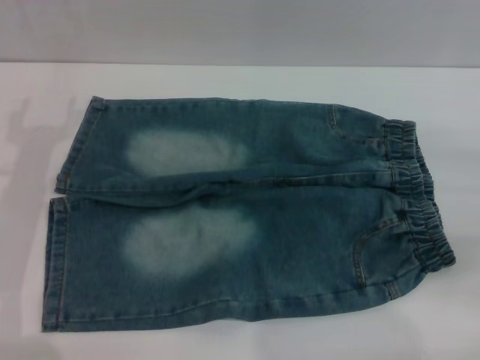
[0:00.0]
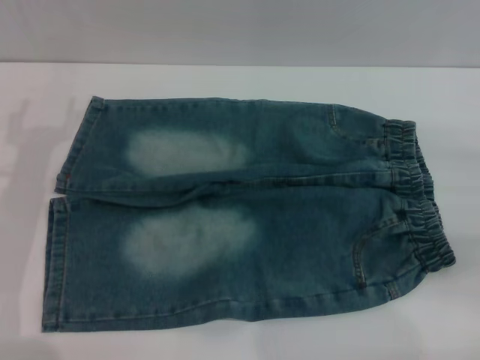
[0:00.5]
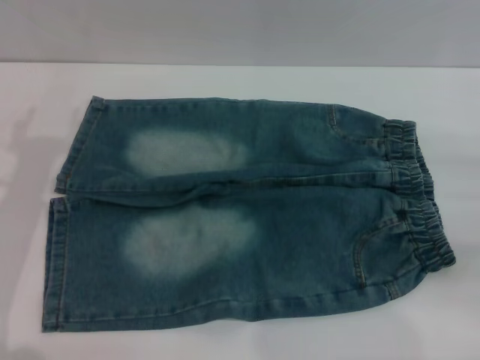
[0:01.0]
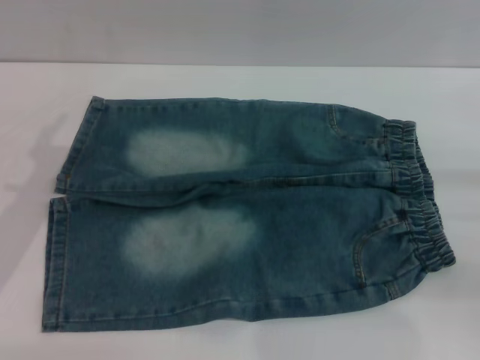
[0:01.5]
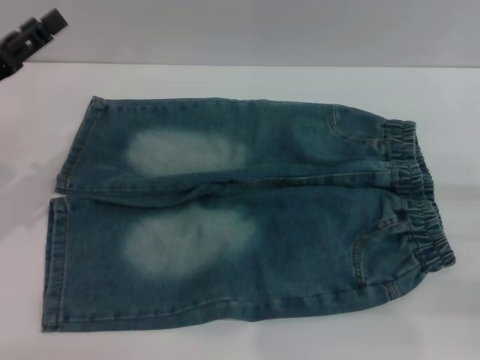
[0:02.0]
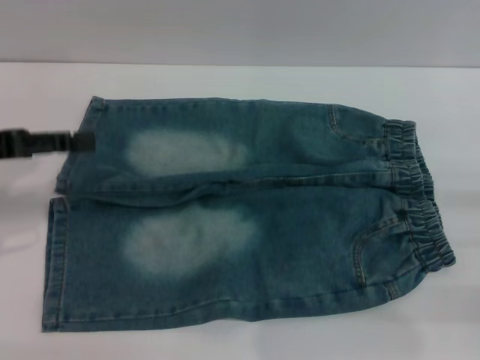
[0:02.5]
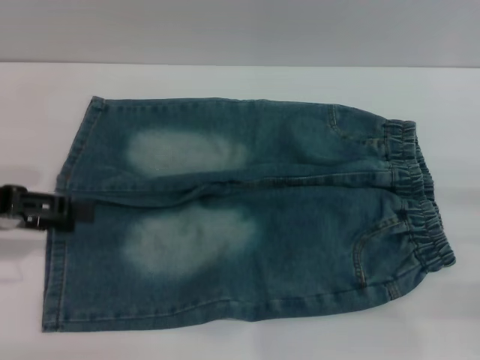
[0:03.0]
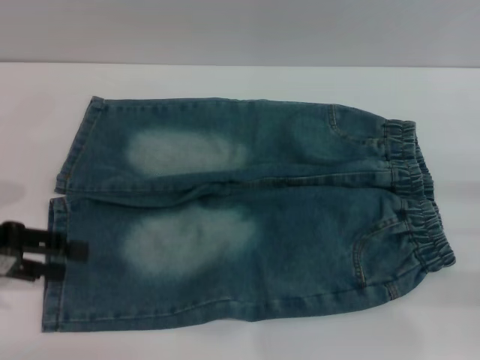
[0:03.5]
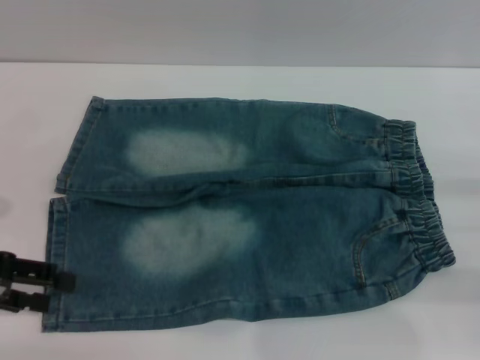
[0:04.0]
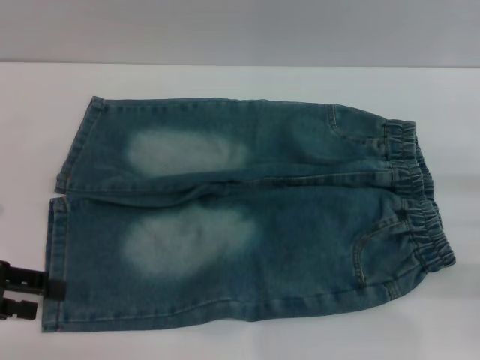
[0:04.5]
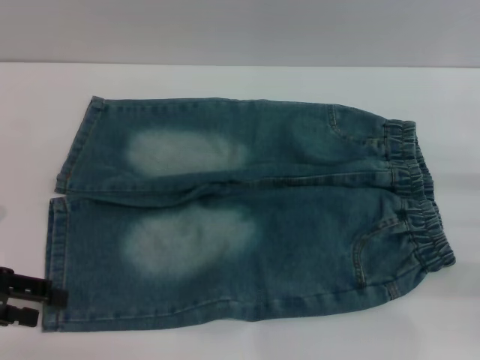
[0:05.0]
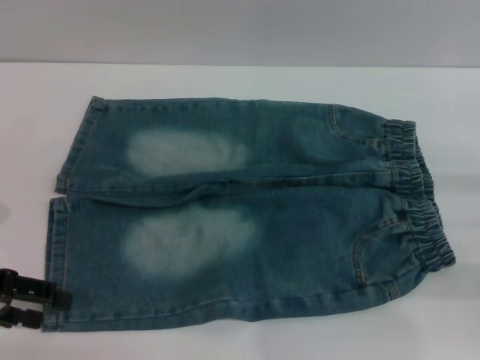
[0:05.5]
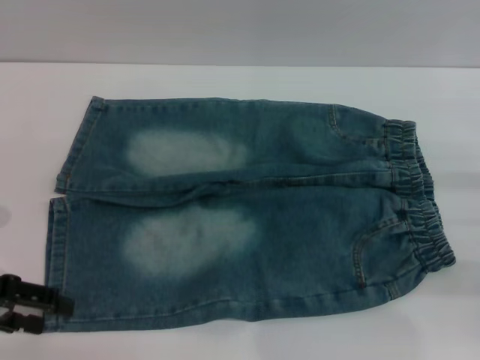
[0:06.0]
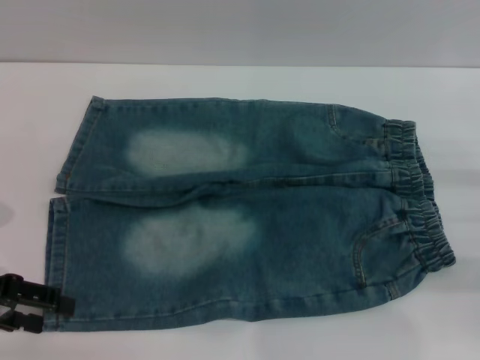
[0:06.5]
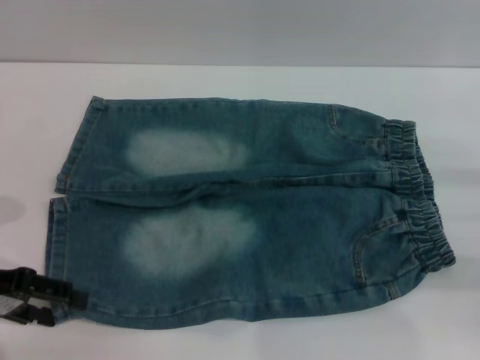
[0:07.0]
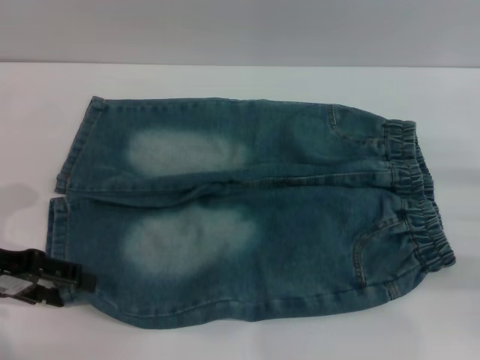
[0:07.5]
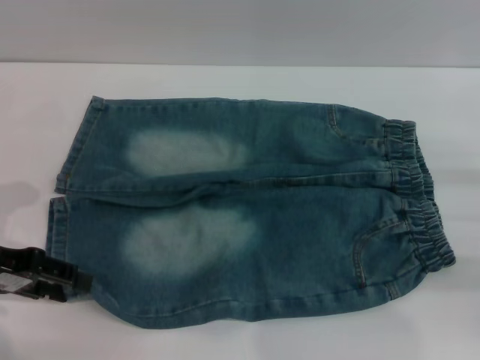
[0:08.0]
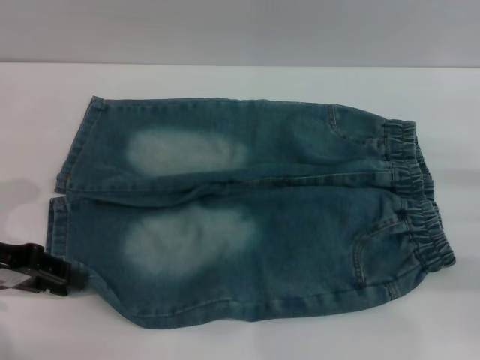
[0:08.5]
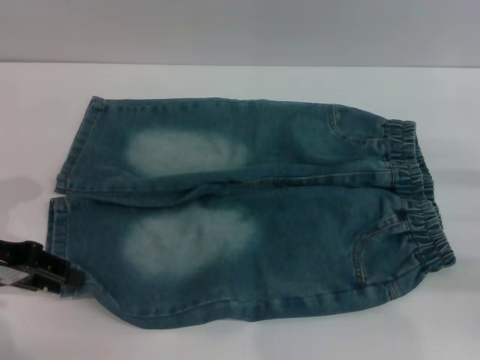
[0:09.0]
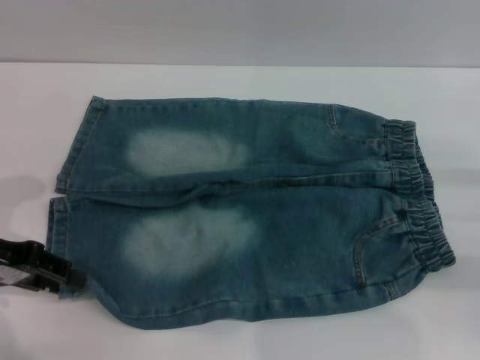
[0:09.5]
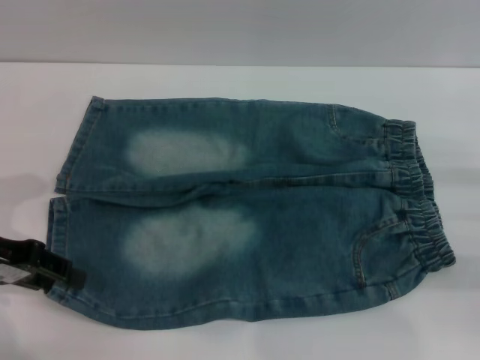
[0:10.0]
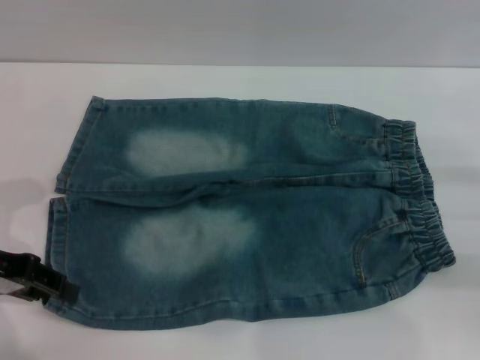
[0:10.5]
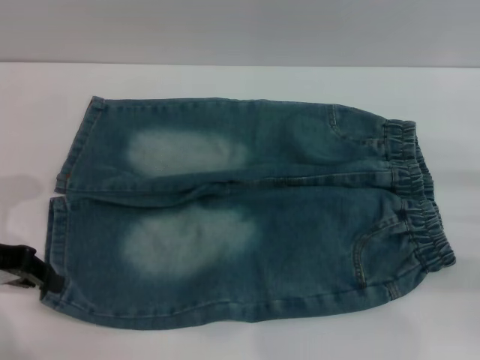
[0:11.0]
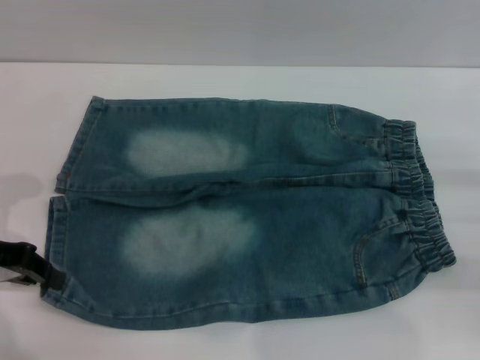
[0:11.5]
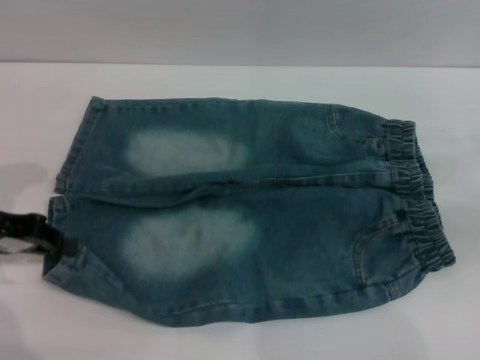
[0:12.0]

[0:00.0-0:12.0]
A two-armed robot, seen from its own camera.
0:02.0 to 0:04.0: The left gripper shifts about 5 cm backward.
0:04.0 to 0:08.0: The grippers stay close to where they were, moving slightly.
0:08.0 to 0:10.0: The left gripper closes up.
0:10.0 to 0:12.0: The left gripper closes.

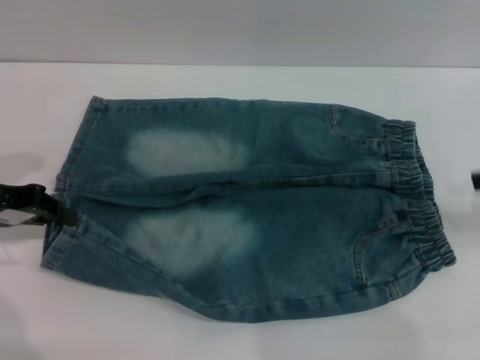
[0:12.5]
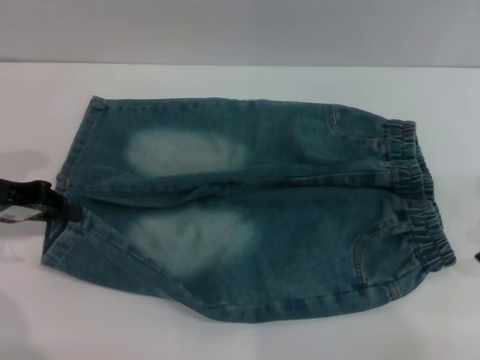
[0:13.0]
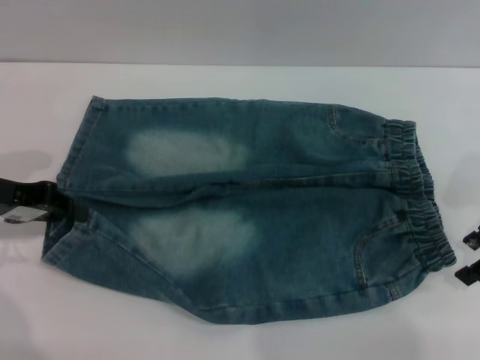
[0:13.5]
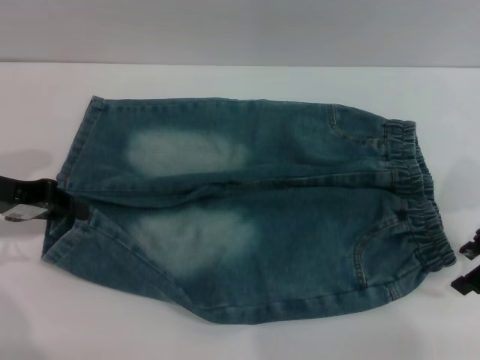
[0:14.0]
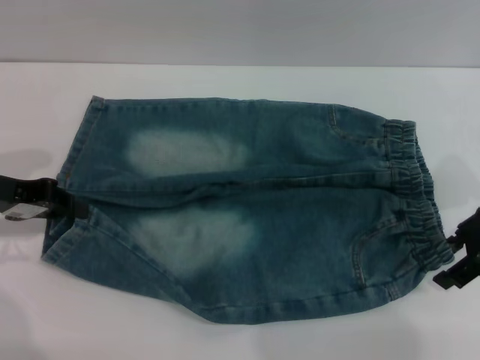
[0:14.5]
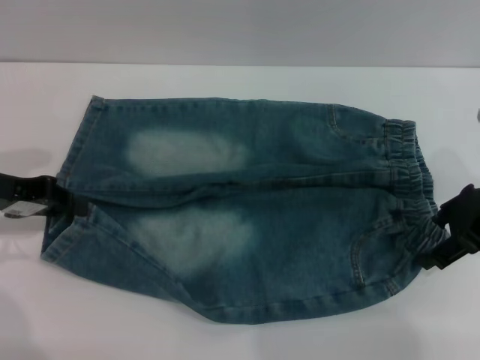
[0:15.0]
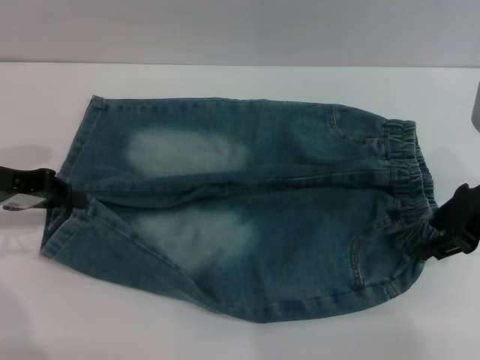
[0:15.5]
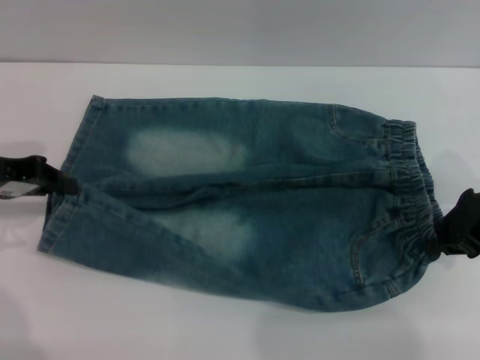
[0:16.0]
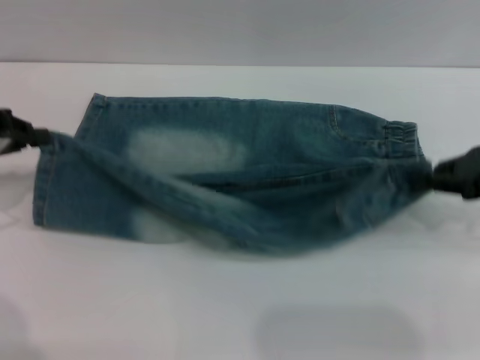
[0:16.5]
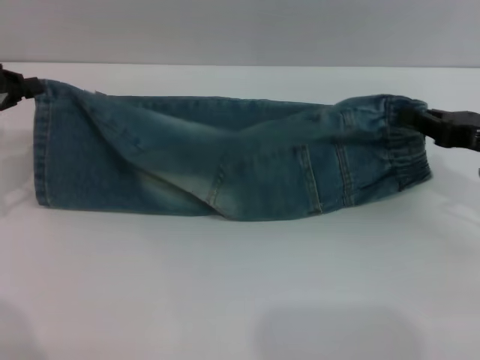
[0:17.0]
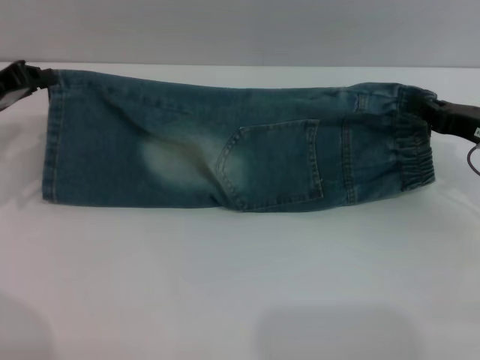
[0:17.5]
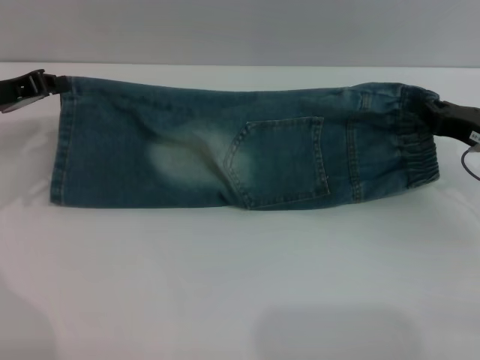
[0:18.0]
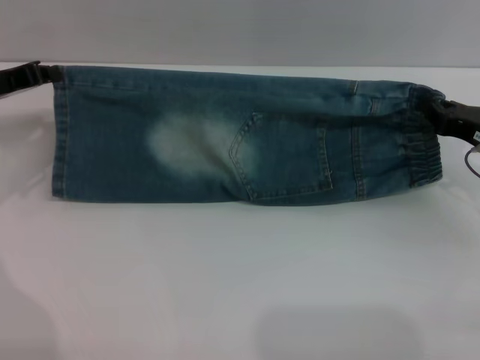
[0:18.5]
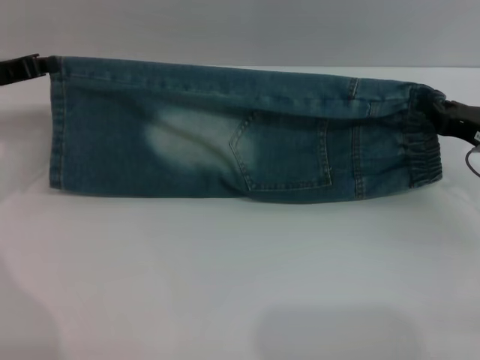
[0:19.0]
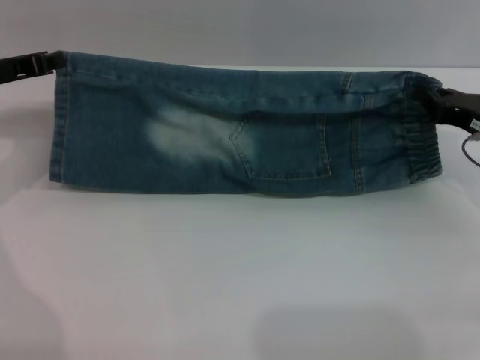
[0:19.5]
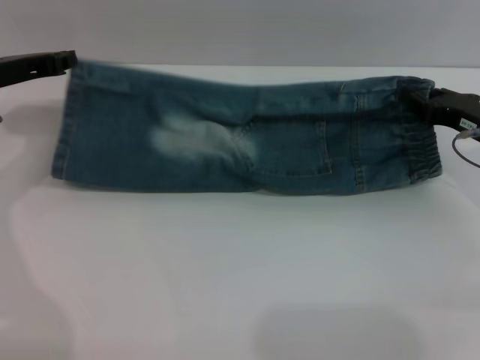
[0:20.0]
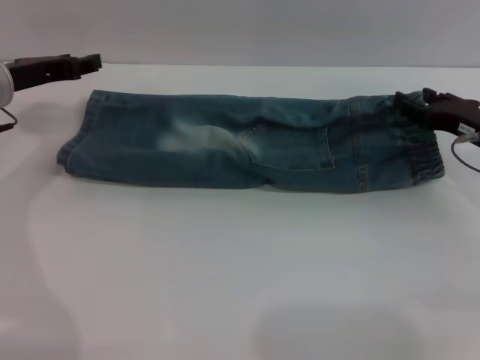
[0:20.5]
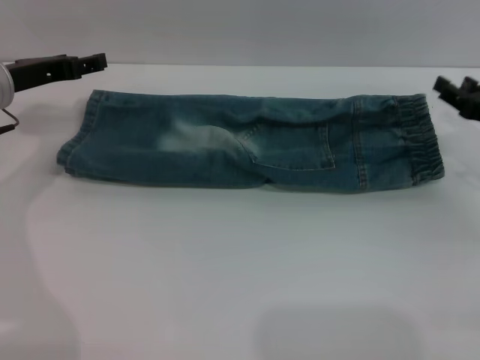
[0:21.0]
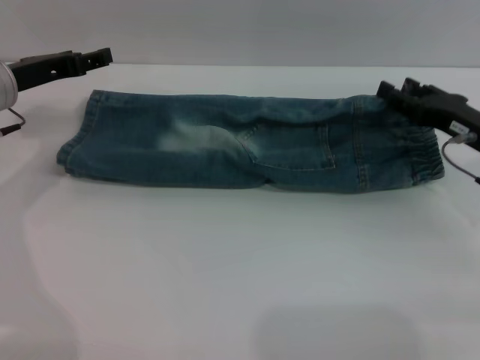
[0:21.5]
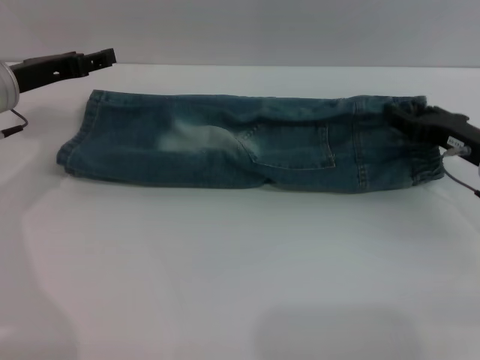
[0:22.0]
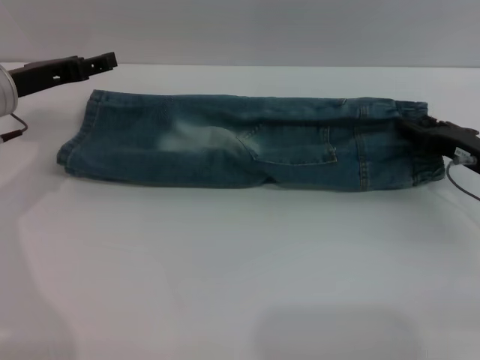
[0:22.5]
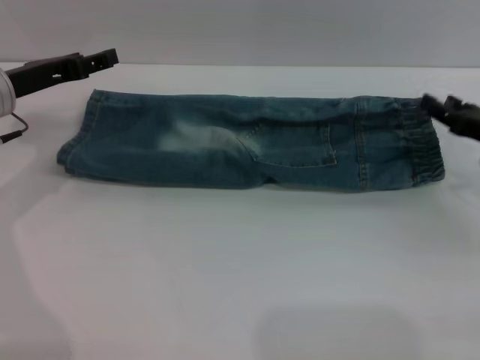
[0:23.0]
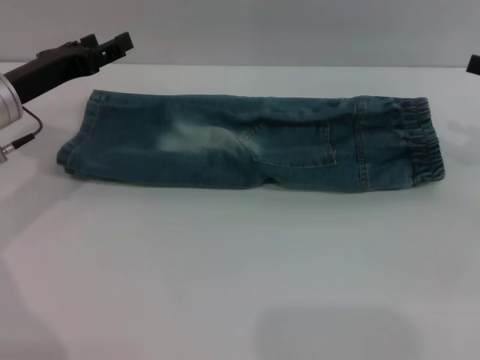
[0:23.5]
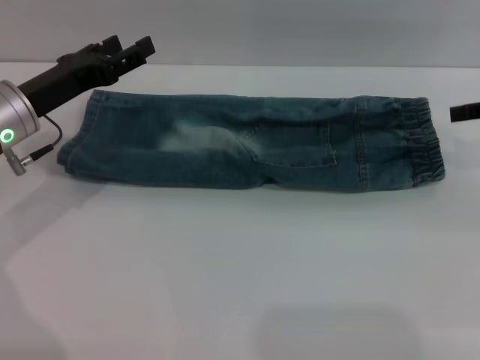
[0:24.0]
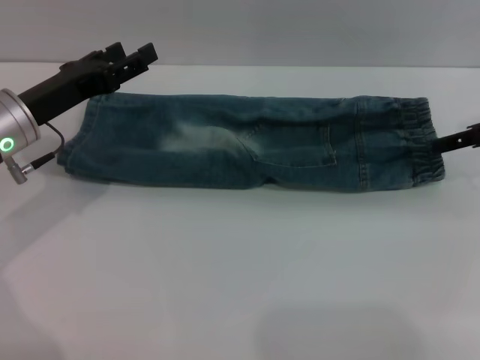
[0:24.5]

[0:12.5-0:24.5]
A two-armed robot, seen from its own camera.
Step, 0:12.5 to 0:20.5: Fold the bottom of the pants upward with both grippers.
0:12.5 to 0:14.5: The right gripper is displaced to the left and downward by approximately 10 cm.
0:14.5 to 0:16.5: The right gripper closes up.
0:16.5 to 0:18.5: The right gripper goes approximately 10 cm downward; the left gripper changes place by about 5 cm.
0:18.5 to 0:20.5: The left gripper opens up. The right gripper opens up.
0:20.5 to 0:22.5: The left gripper opens its fingers.
0:22.5 to 0:24.5: The right gripper moves upward, roughly 10 cm. Meanwhile the left gripper changes place by about 5 cm.

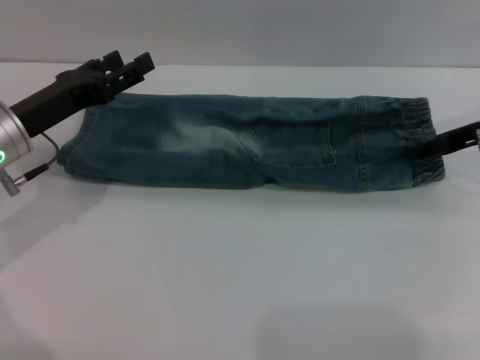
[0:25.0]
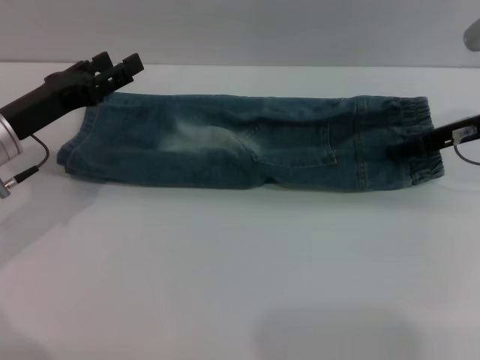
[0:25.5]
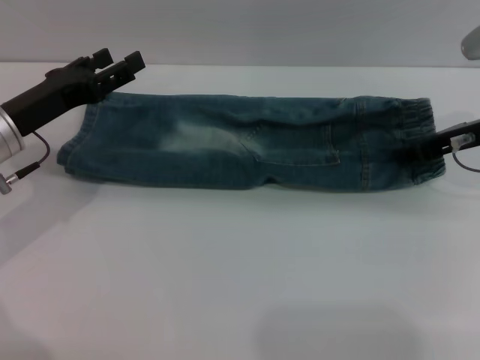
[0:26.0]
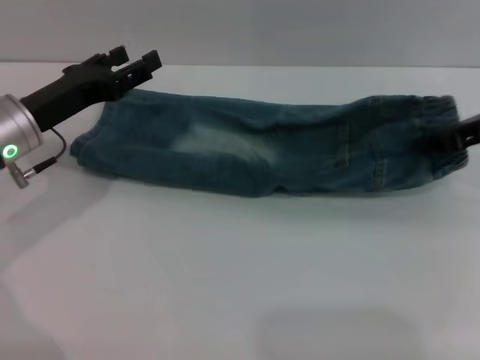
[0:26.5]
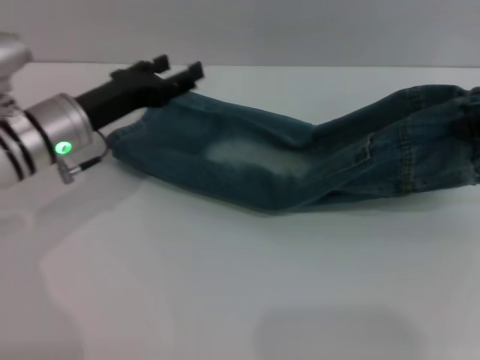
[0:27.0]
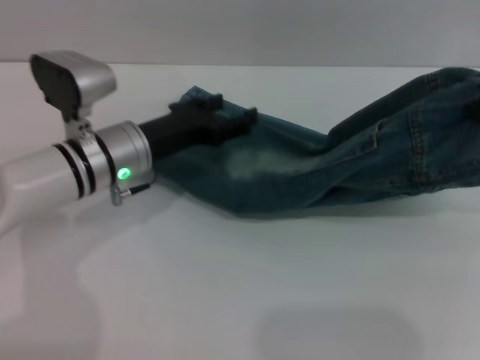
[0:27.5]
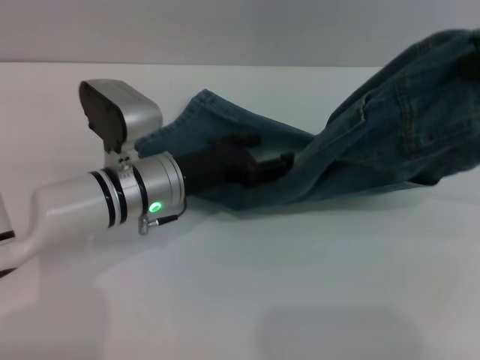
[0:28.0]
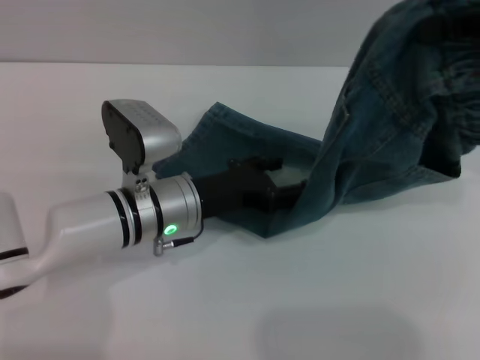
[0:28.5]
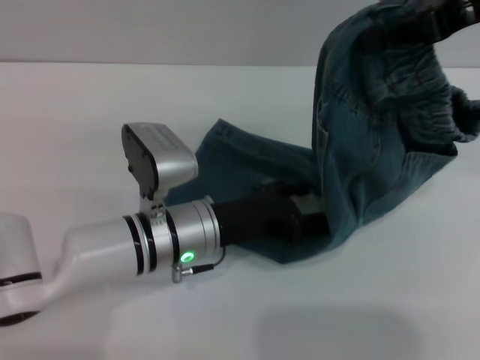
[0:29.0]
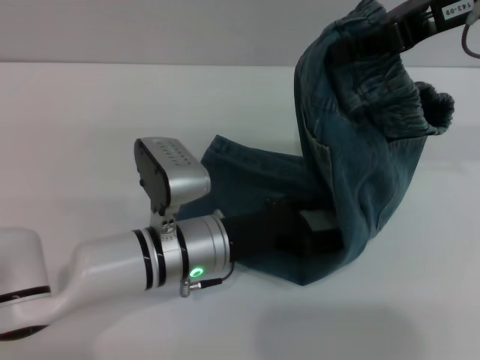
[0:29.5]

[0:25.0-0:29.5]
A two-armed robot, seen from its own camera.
0:25.0 to 0:27.0: The left gripper travels to the right by some 5 cm, while the right gripper is displaced upward and backward by approximately 10 cm, and closes its fingers.
0:27.0 to 0:29.5: The right gripper shifts some 10 cm to the left and upward; the left gripper heads to the right, backward and downward, covering roughly 15 cm.
